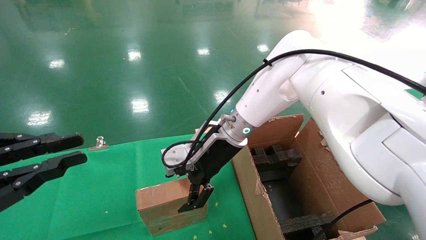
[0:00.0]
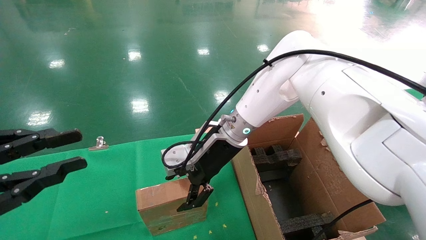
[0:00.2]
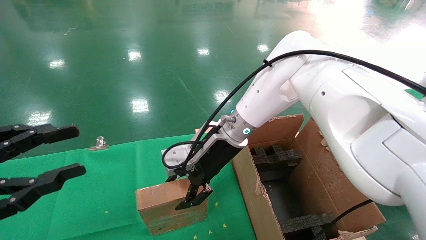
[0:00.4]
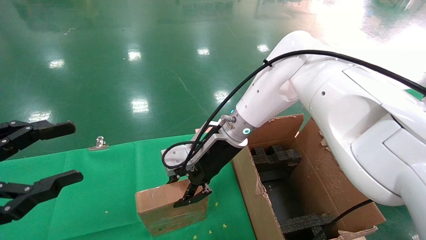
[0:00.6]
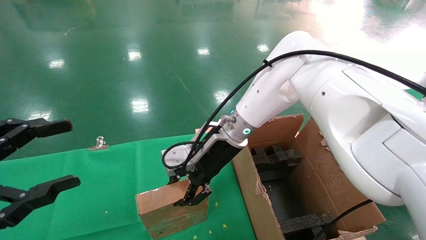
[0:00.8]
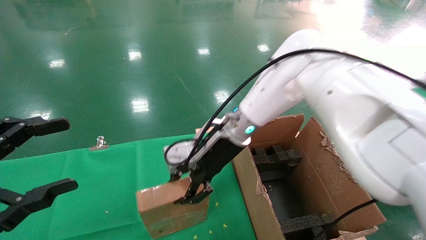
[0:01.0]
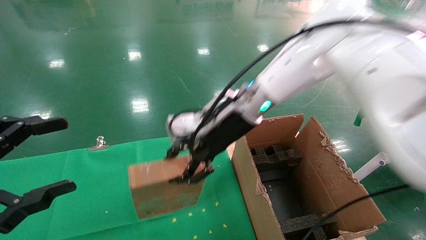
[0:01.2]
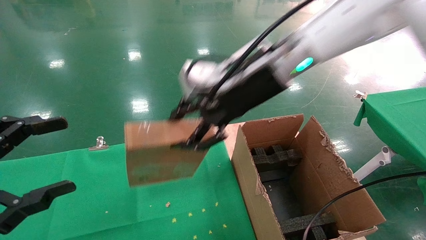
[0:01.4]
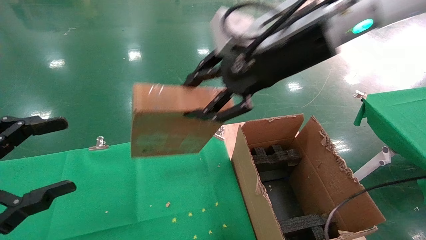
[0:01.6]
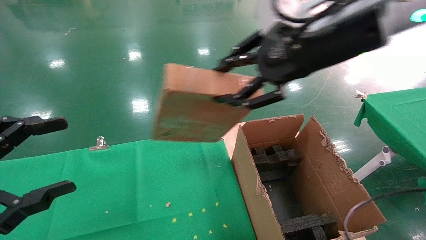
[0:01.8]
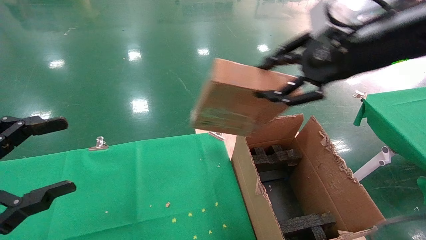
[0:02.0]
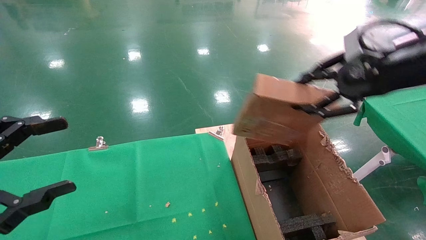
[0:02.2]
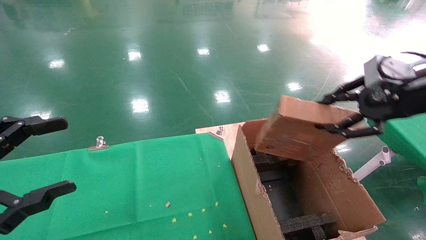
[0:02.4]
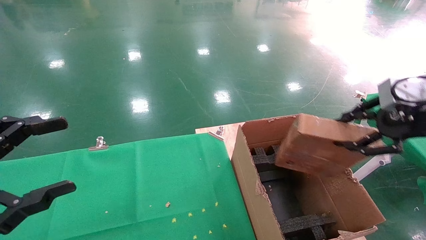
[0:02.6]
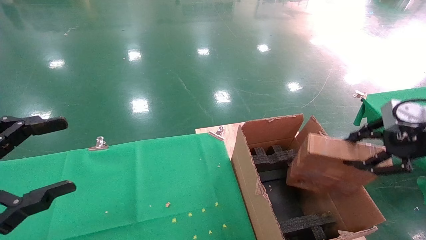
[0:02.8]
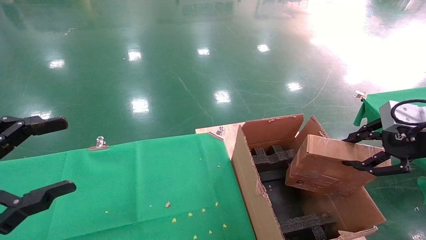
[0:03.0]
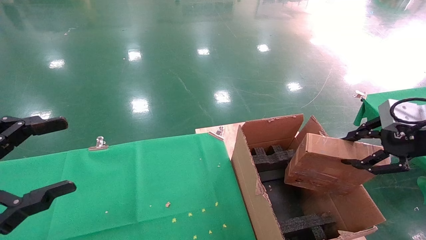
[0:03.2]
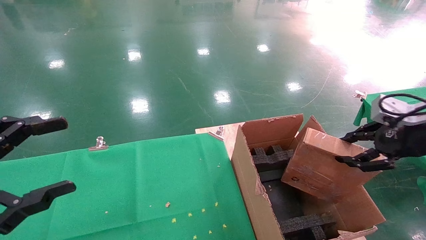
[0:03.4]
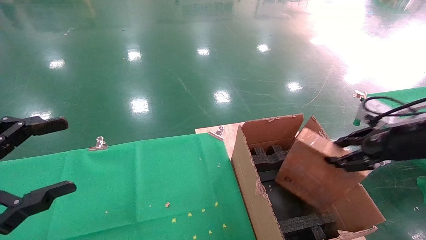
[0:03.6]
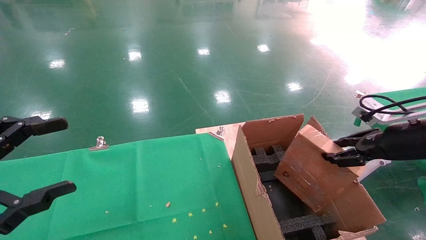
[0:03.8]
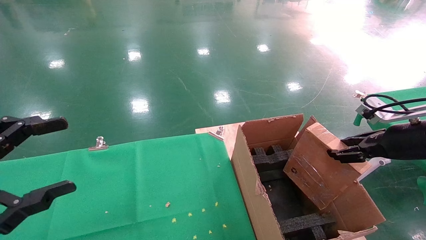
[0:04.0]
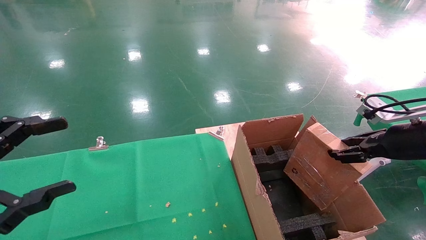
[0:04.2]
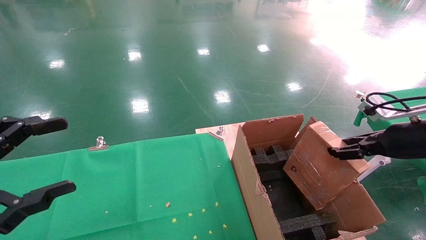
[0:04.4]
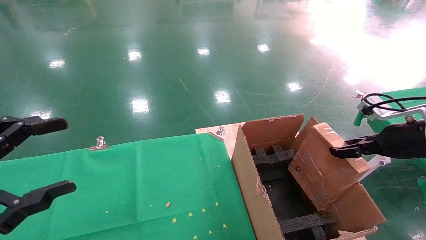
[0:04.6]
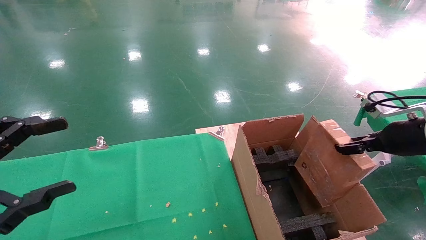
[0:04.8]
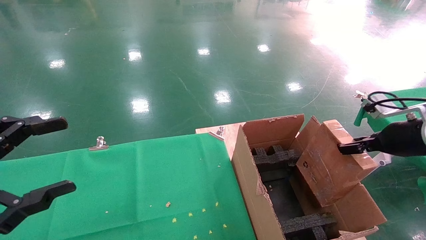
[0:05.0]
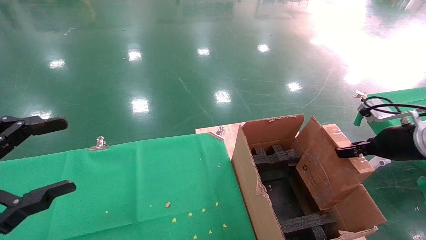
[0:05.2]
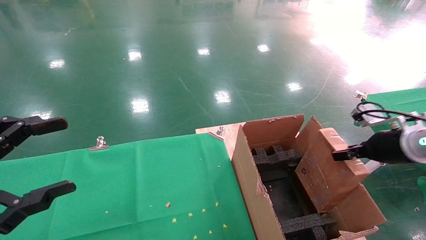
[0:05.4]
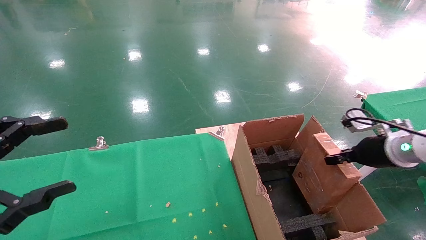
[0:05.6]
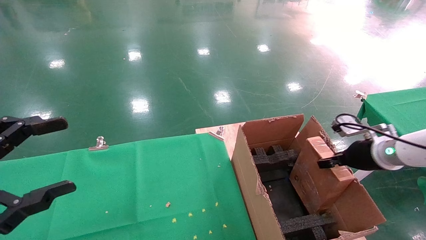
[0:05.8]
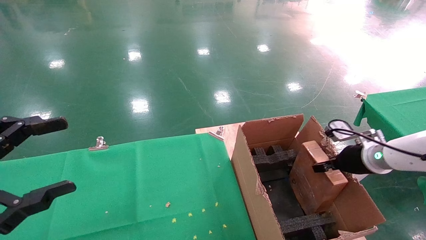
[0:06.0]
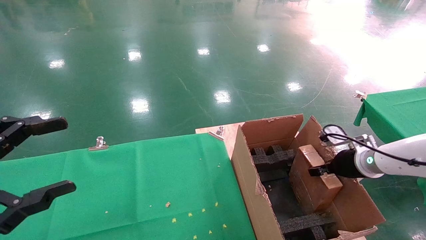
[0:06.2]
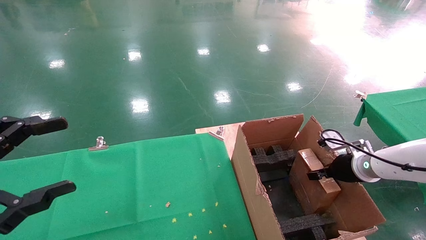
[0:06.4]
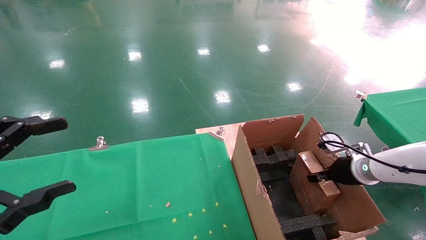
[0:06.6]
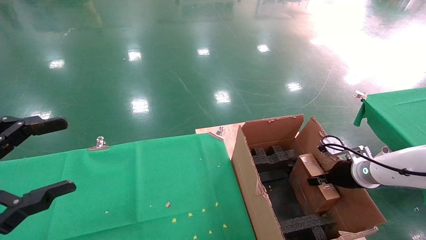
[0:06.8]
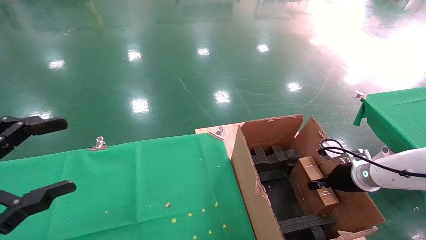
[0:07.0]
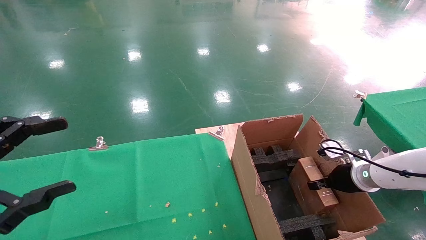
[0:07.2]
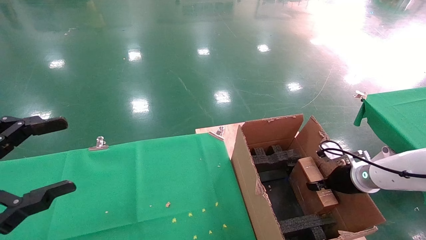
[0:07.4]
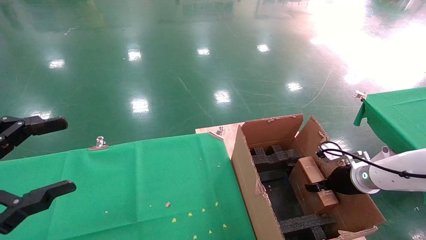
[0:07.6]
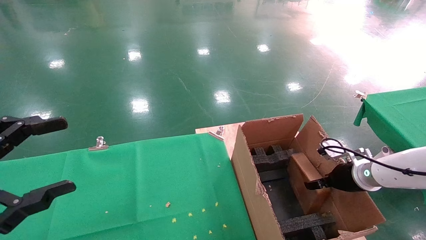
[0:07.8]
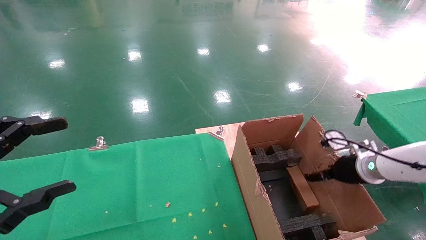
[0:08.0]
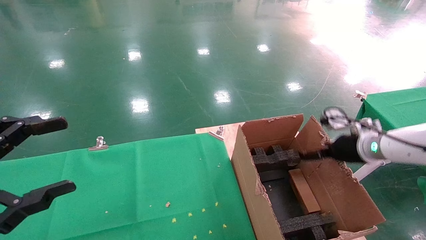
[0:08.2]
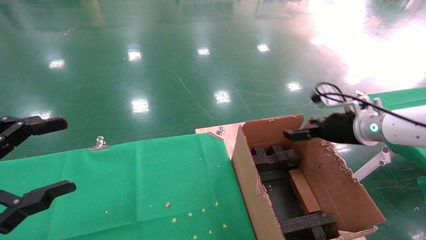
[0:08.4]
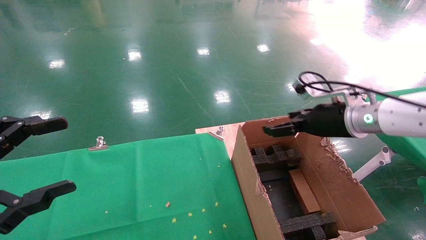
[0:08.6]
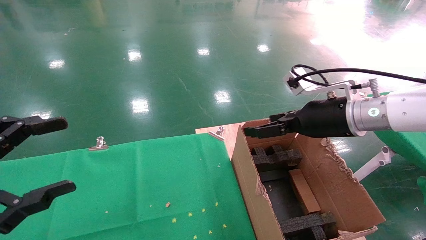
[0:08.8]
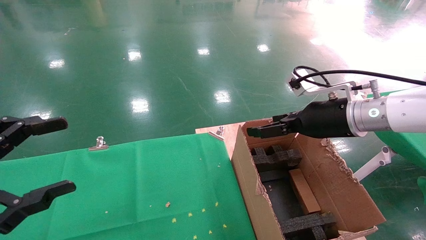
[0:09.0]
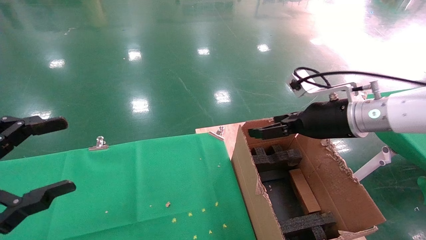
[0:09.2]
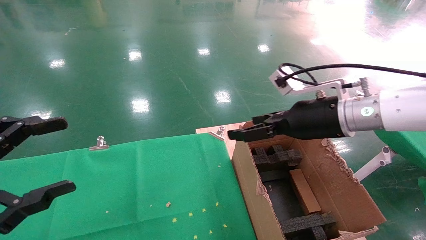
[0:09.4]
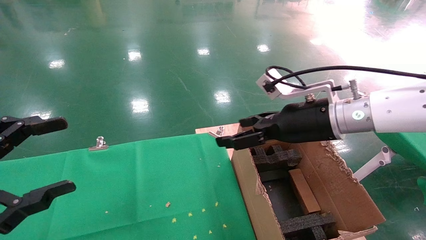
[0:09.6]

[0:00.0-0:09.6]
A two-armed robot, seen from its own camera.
Task of the whole recording: using a robotic arm to pick up a cardboard box and palace it the carton.
Step, 0:01.2 to 0:08.4: Place the mouse and the power cord paper box into the container.
0:00.0 to 0:01.6: The right gripper shifts roughly 25 cm upward, backward and to the right, and closes up. Meanwhile the left gripper opens its fingers.
0:01.6 to 0:03.2: The right gripper is displaced to the right and downward by some 30 cm.
0:03.2 to 0:04.8: The right gripper is displaced downward and forward by roughly 10 cm.
0:04.8 to 0:06.4: The right gripper goes approximately 15 cm downward and forward.
0:06.4 to 0:08.0: The right gripper opens its fingers.
0:08.0 to 0:09.6: The right gripper is displaced to the left and upward by some 20 cm, and opens.

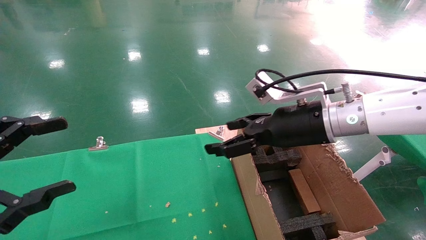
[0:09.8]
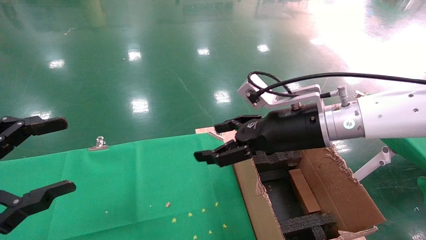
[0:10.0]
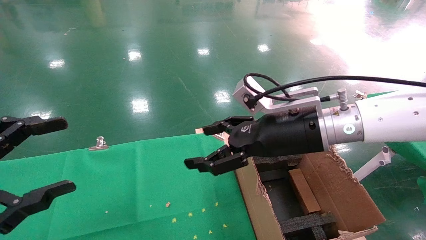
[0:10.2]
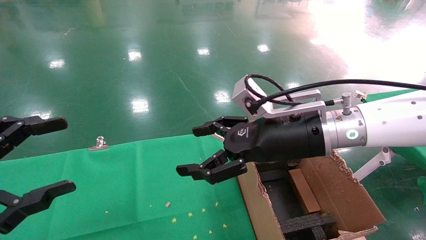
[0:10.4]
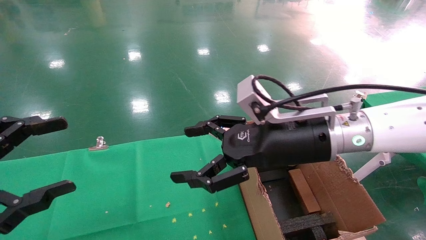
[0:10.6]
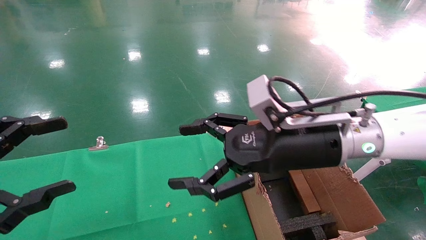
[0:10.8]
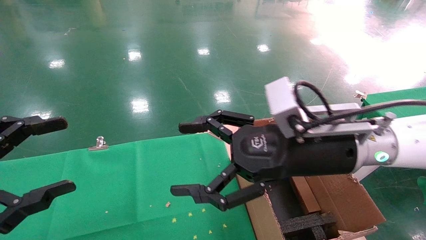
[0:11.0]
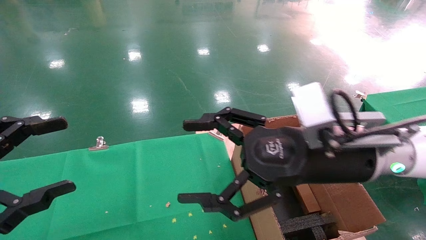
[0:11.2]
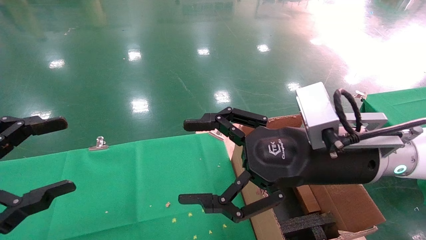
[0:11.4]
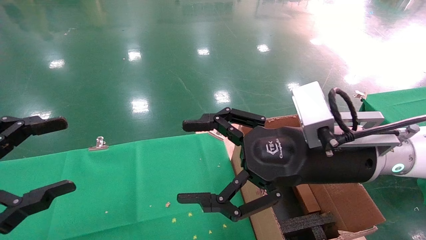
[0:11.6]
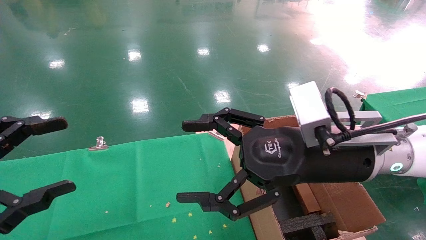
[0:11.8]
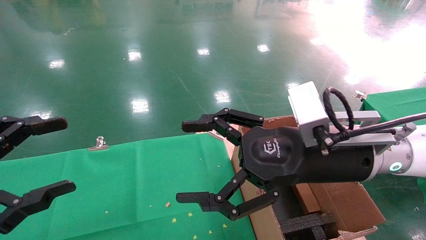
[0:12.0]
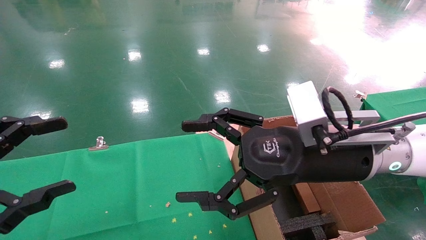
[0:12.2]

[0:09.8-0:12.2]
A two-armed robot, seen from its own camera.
Task of the whole recording: using a robotic arm to pick up a cardboard box and palace it the carton.
0:09.8 to 0:11.0: The right gripper heads backward, covering roughly 5 cm.
0:11.0 to 0:12.2: There are only small adjustments of the grippers.

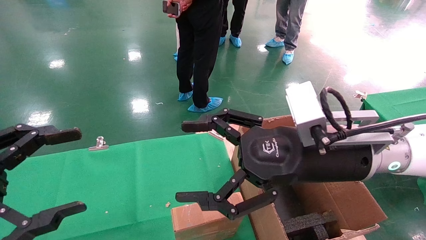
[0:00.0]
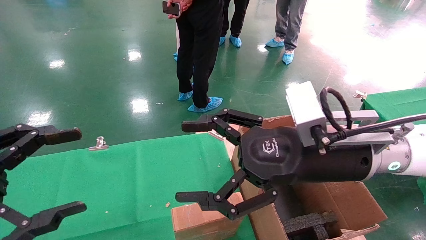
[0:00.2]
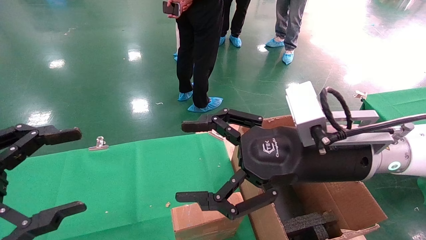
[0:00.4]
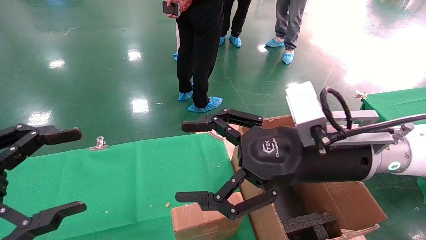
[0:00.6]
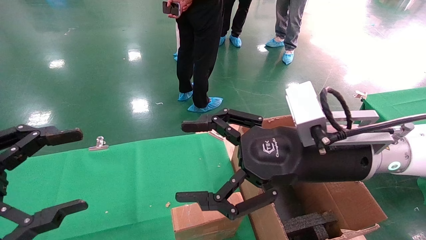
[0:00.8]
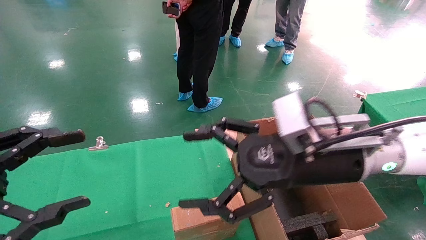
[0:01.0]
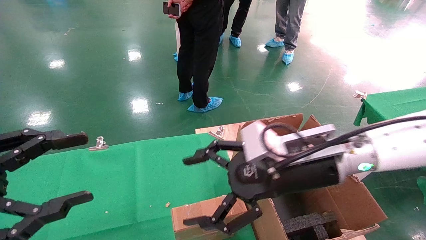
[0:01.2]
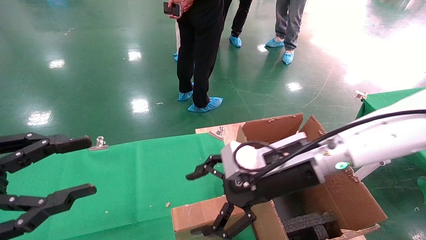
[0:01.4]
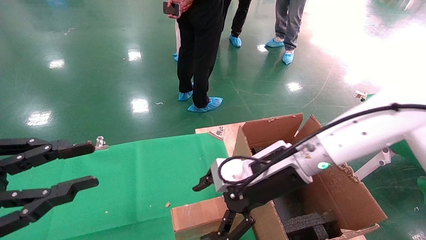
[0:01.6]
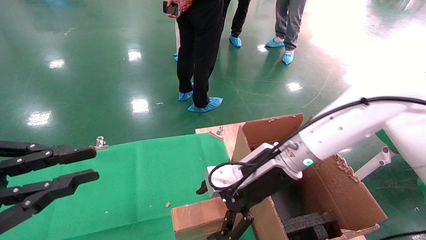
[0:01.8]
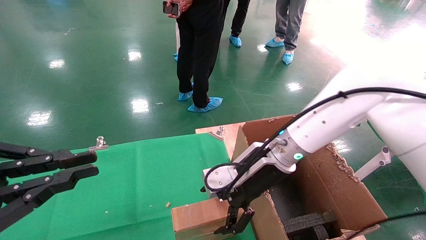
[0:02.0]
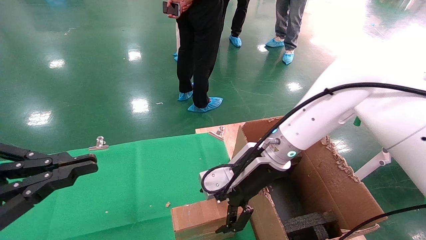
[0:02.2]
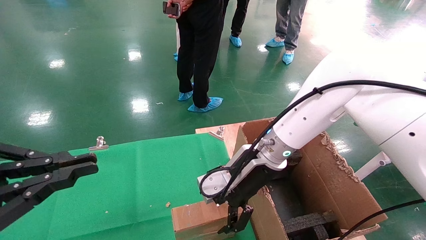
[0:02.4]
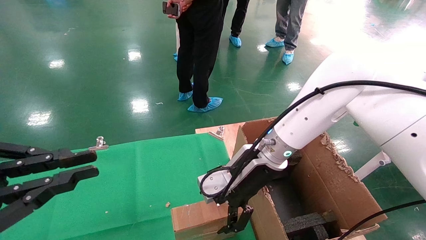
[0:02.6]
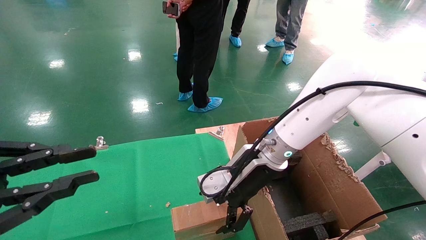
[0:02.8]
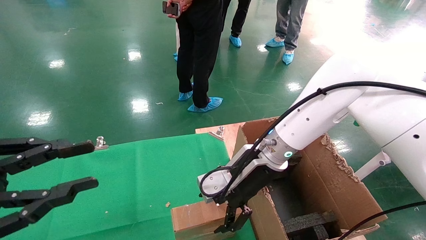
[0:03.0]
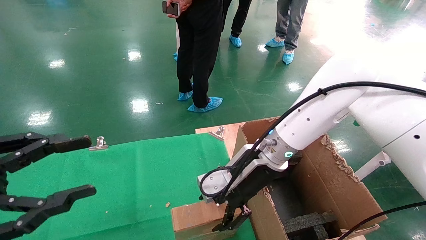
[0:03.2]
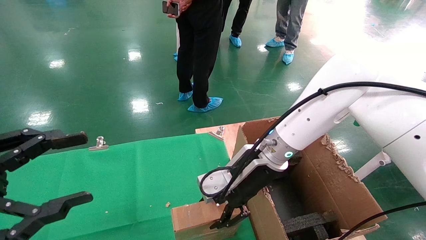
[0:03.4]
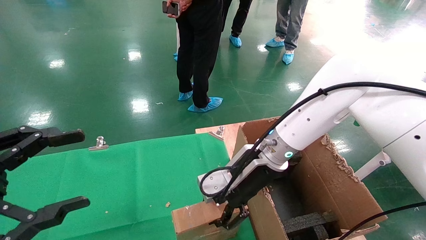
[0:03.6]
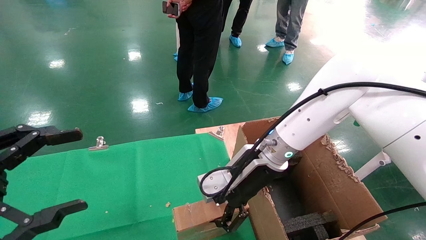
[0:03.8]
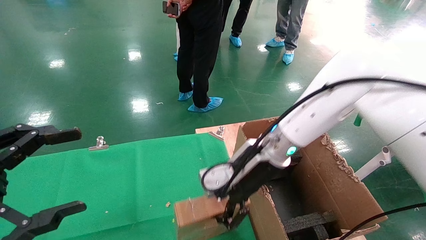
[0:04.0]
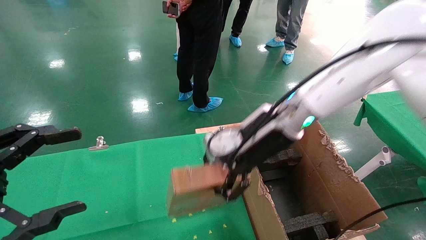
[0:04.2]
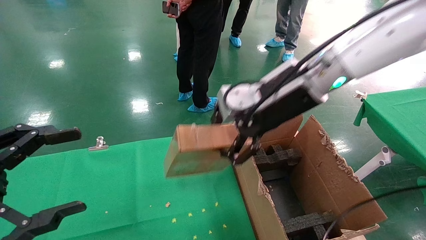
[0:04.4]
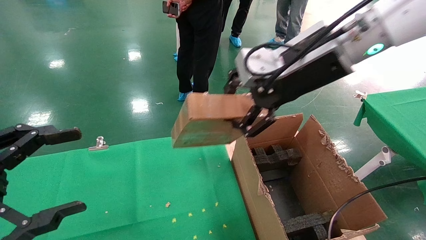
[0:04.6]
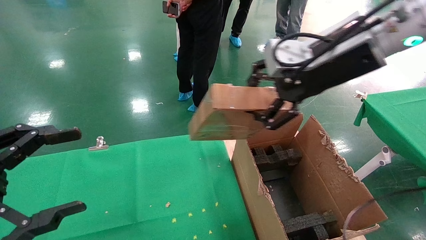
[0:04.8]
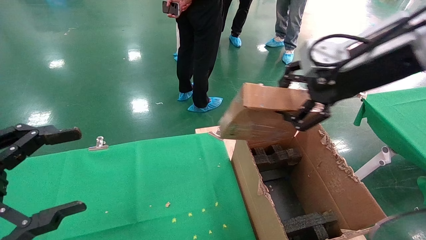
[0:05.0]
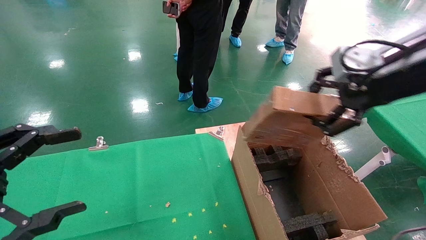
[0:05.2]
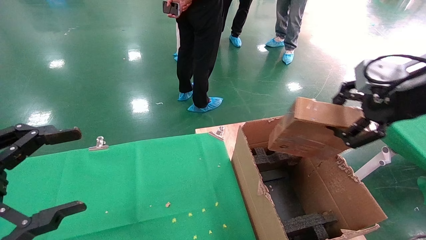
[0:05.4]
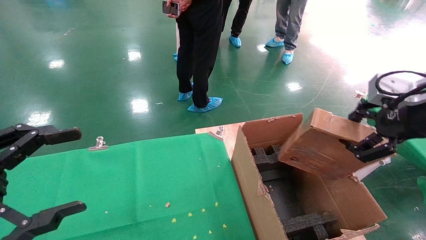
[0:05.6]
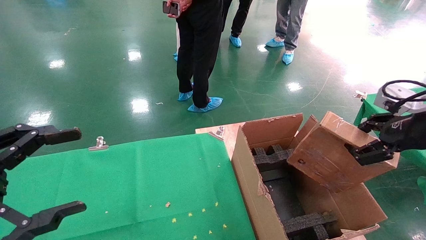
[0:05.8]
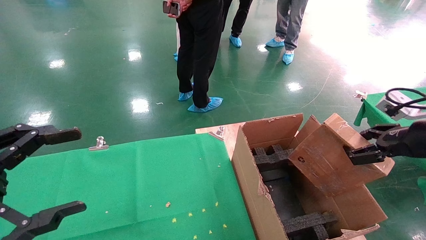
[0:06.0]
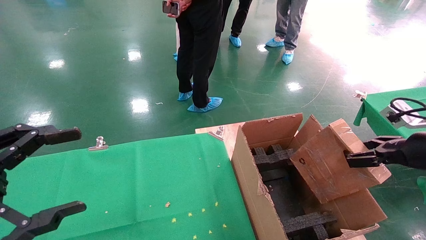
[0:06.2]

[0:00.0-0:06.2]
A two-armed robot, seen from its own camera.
Task of the whole recording: using a robotic arm to pick up a cardboard box and palace it the carton.
Step, 0:01.4 to 0:03.6: Pick up the mouse and the power cord paper box.
0:00.0 to 0:01.6: The left gripper closes, while the right gripper moves forward and downward, approximately 10 cm.
0:01.6 to 0:03.2: The left gripper closes, then reopens.
0:03.2 to 0:04.6: The left gripper opens up, while the right gripper heads upward and to the right, covering approximately 20 cm, and closes up.
0:04.6 to 0:06.2: The right gripper travels to the right and downward by roughly 30 cm.
